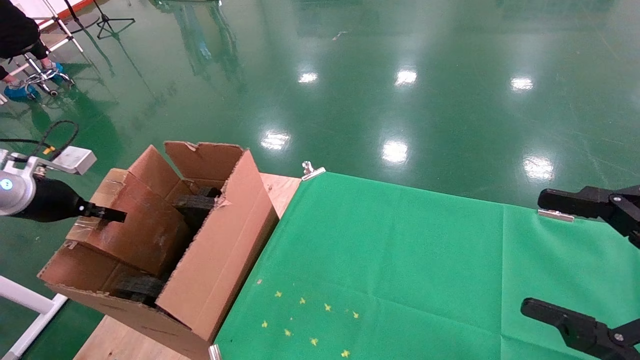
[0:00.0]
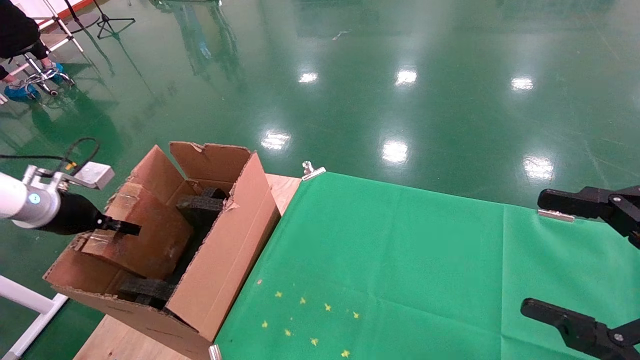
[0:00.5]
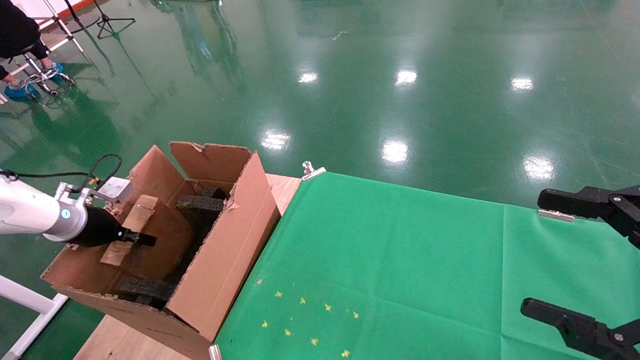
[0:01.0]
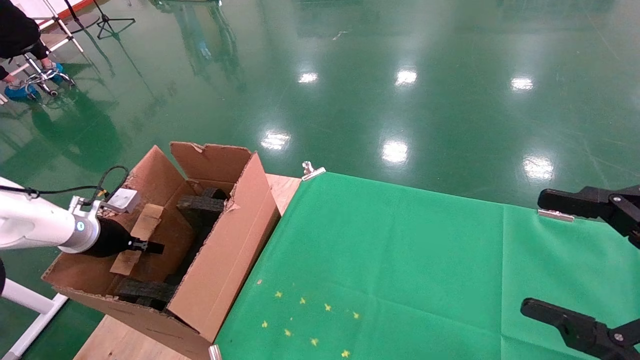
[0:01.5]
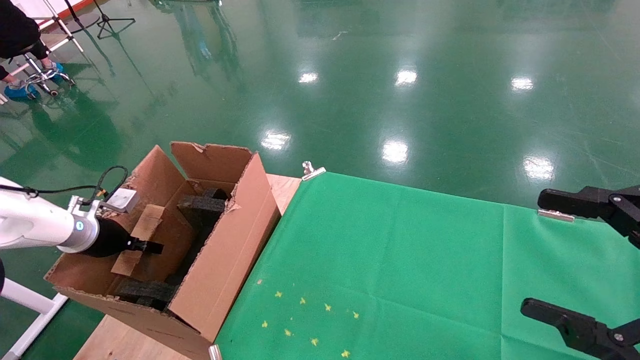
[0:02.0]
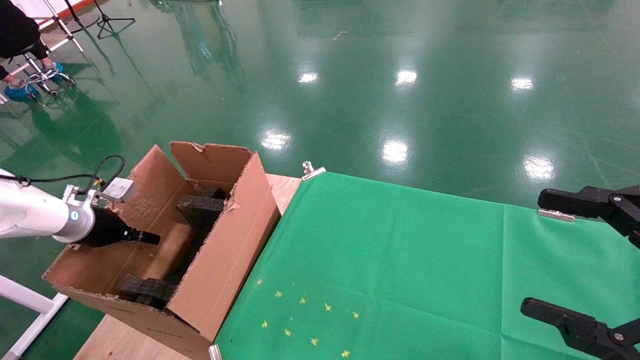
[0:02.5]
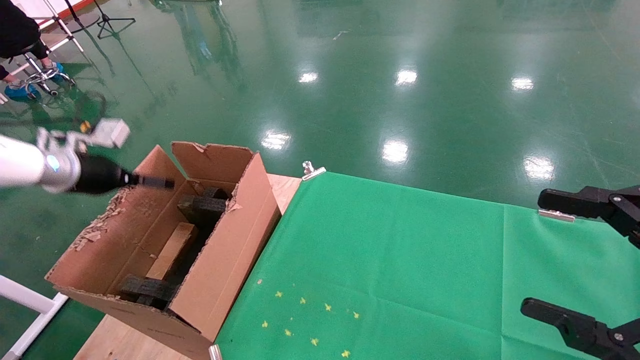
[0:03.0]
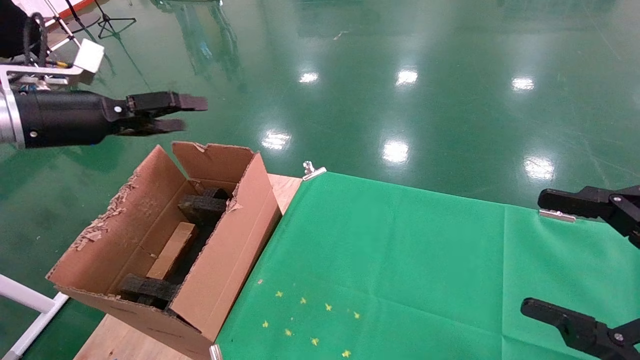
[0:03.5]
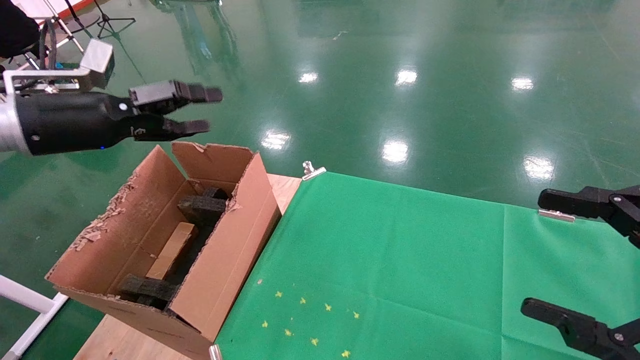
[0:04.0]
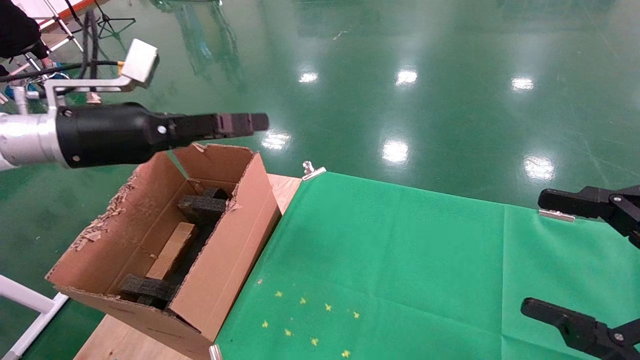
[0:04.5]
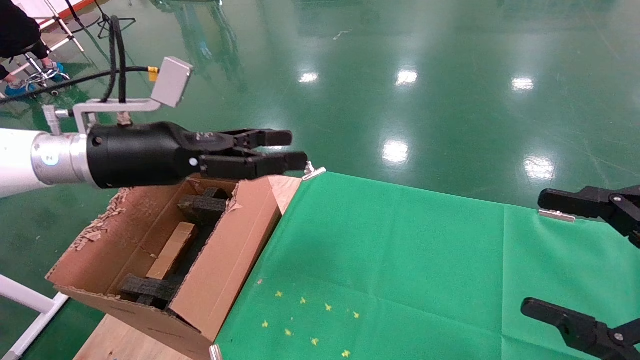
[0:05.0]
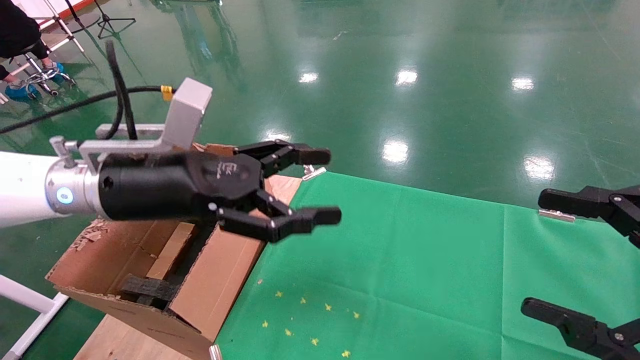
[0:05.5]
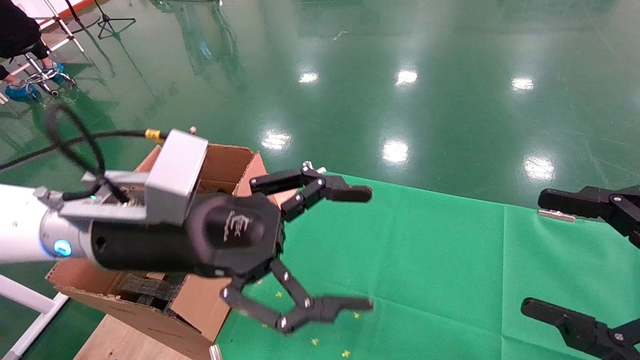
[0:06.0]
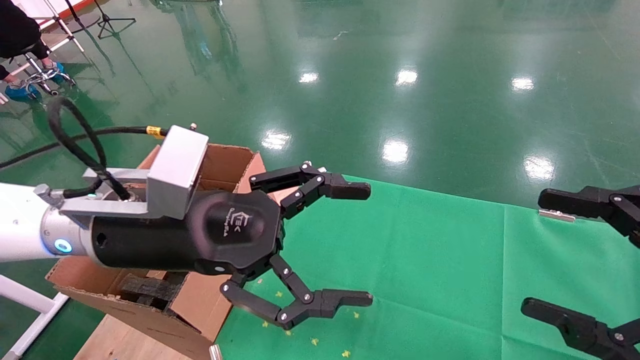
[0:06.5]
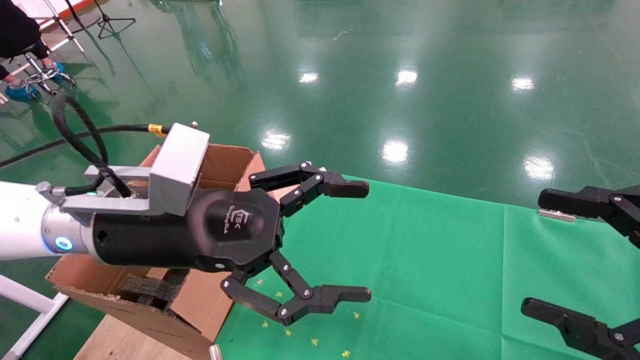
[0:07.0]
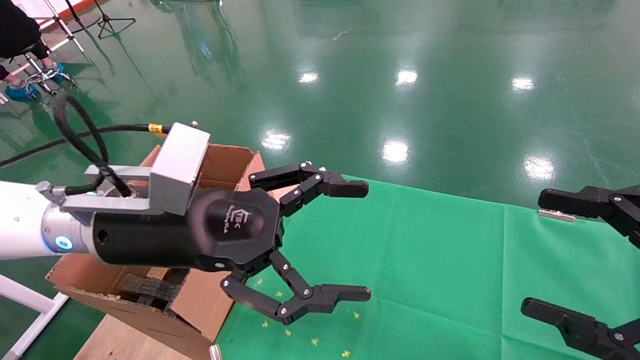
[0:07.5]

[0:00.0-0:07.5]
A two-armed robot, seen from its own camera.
Task of the whole recording: using a robotic arm to pick up a cardboard box and palace it the carton.
Step, 0:00.0 to 0:03.0: Place the mouse and the power cord paper box into the container.
0:00.0 to 0:02.0: The left gripper goes some 10 cm downward.
0:02.0 to 0:04.0: The left gripper goes about 25 cm upward and to the right, and opens its fingers.
0:04.0 to 0:05.5: The left gripper shifts approximately 15 cm to the right.
0:05.5 to 0:07.5: The left gripper moves approximately 5 cm.
